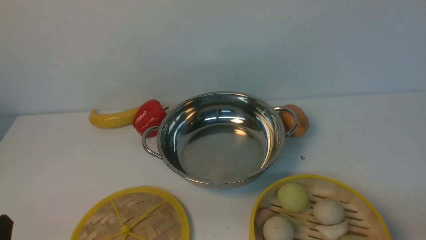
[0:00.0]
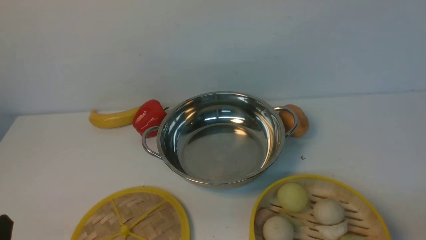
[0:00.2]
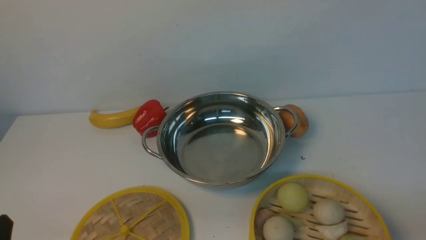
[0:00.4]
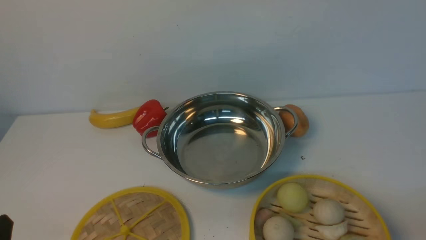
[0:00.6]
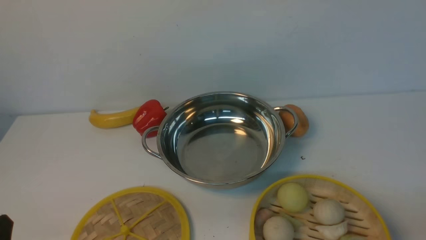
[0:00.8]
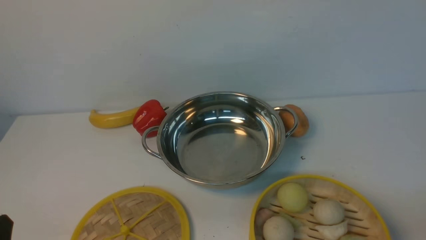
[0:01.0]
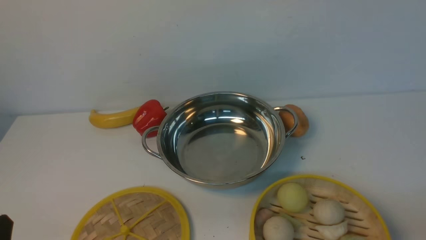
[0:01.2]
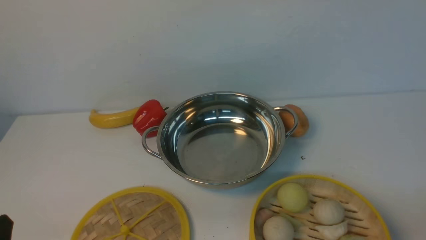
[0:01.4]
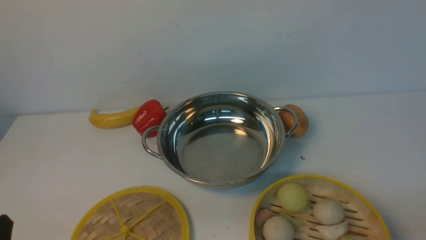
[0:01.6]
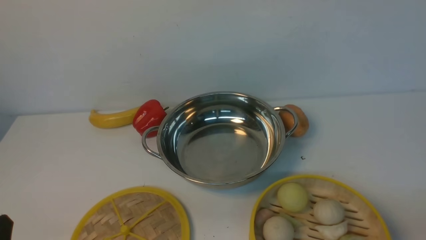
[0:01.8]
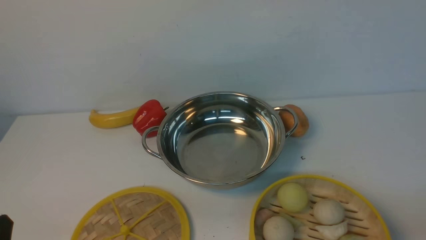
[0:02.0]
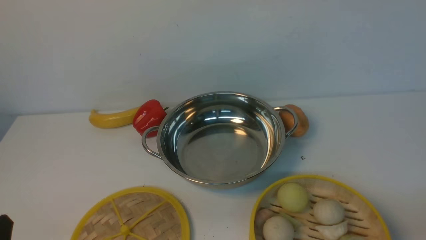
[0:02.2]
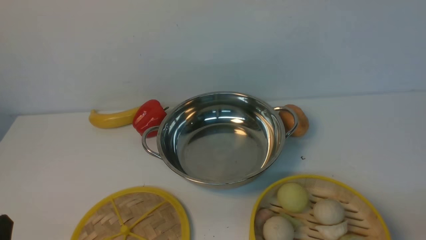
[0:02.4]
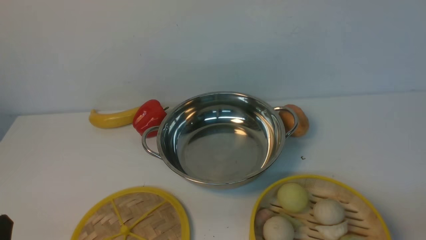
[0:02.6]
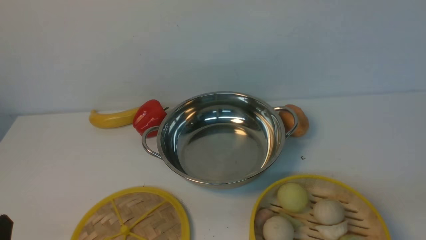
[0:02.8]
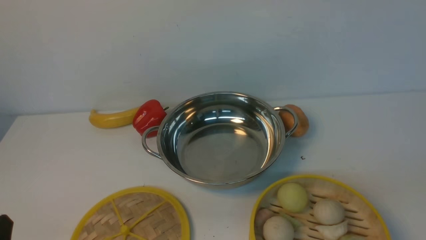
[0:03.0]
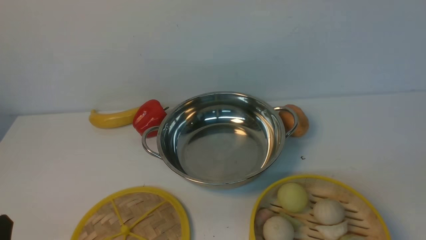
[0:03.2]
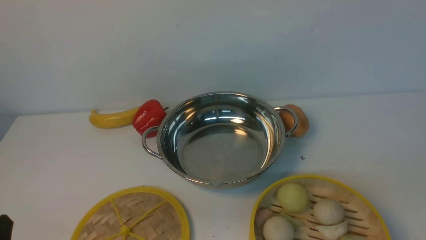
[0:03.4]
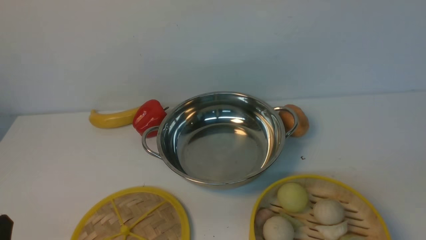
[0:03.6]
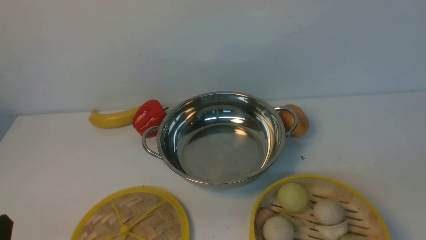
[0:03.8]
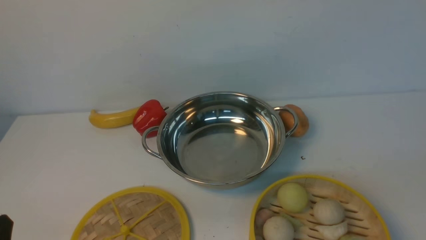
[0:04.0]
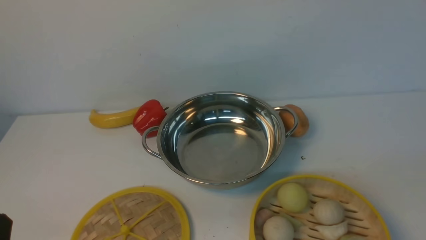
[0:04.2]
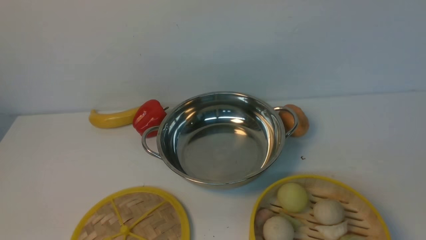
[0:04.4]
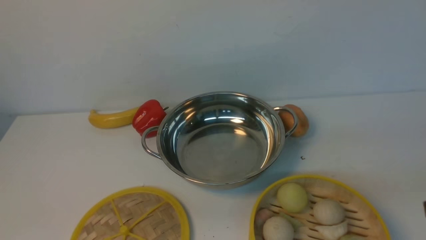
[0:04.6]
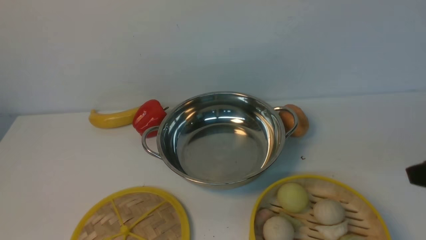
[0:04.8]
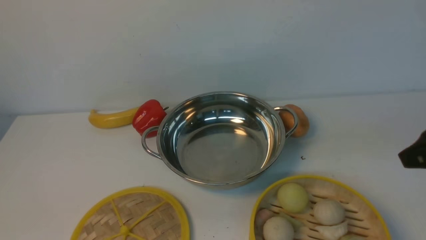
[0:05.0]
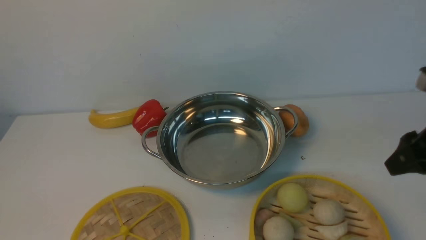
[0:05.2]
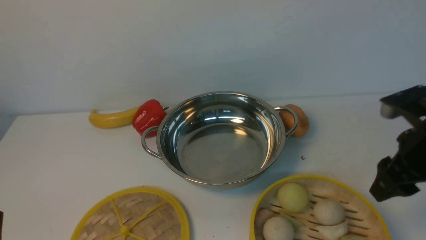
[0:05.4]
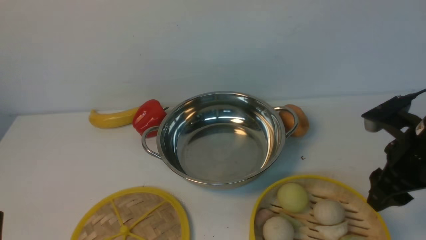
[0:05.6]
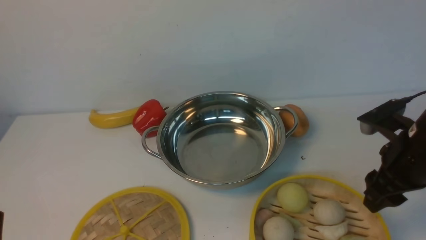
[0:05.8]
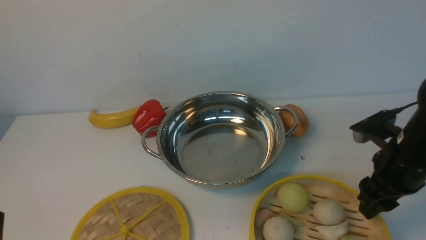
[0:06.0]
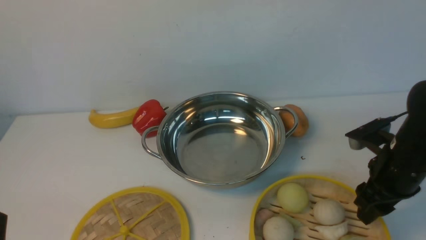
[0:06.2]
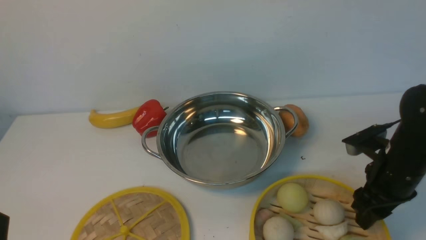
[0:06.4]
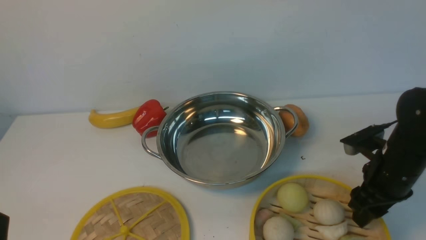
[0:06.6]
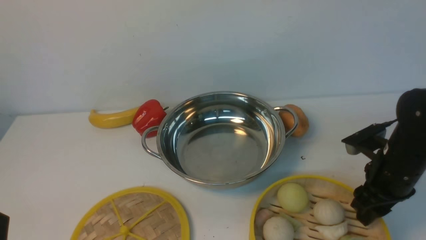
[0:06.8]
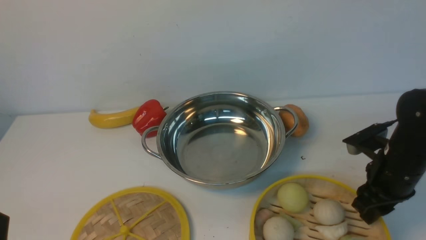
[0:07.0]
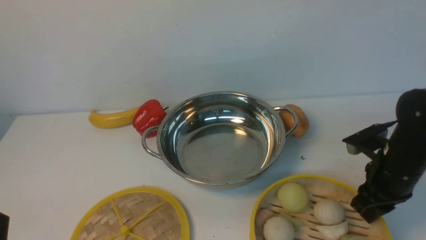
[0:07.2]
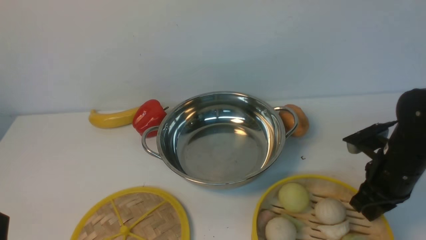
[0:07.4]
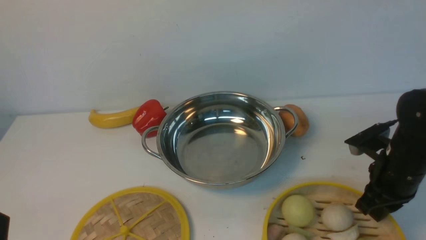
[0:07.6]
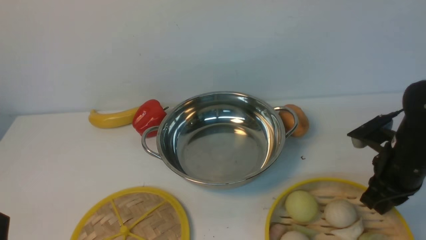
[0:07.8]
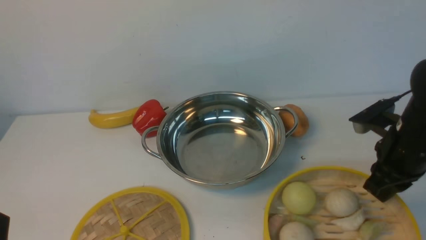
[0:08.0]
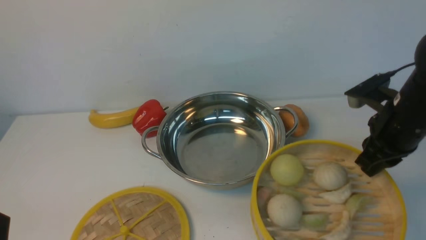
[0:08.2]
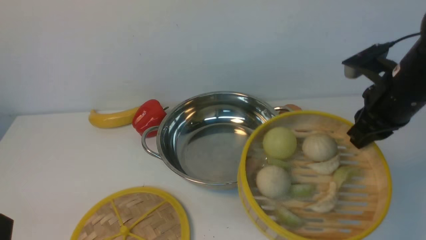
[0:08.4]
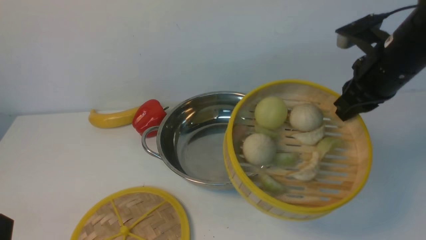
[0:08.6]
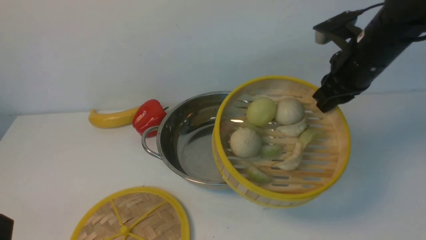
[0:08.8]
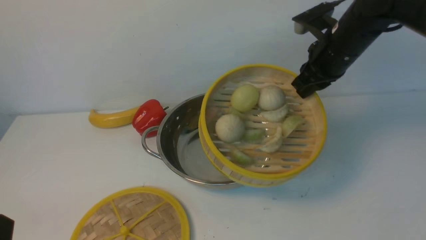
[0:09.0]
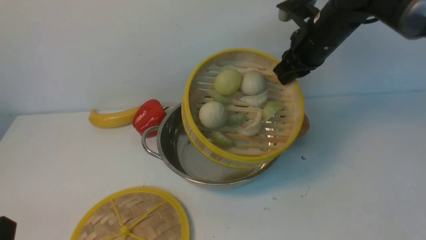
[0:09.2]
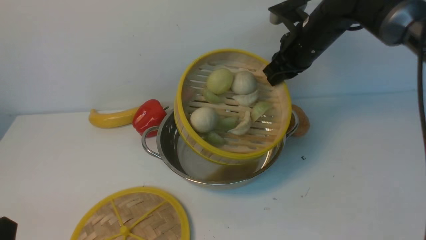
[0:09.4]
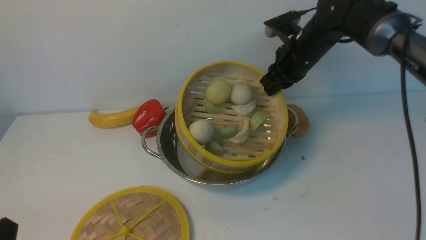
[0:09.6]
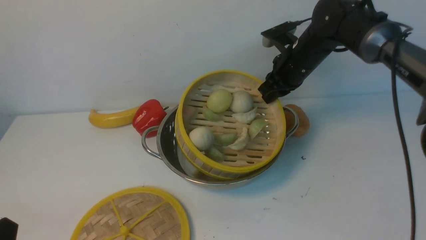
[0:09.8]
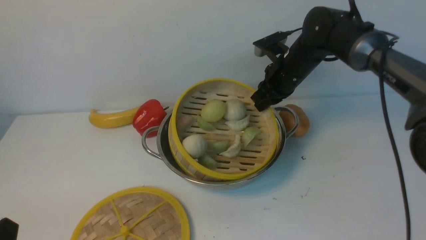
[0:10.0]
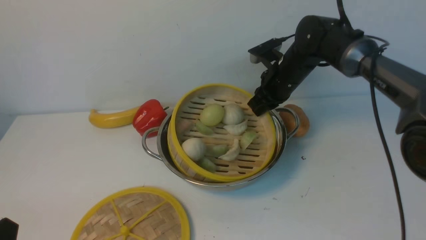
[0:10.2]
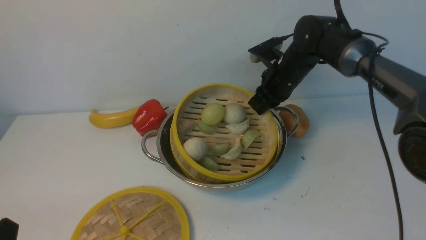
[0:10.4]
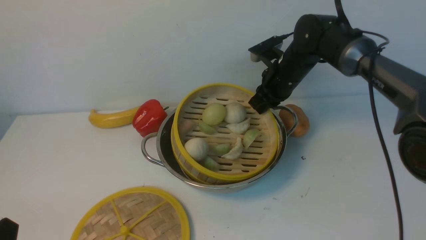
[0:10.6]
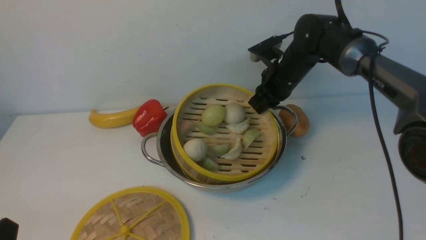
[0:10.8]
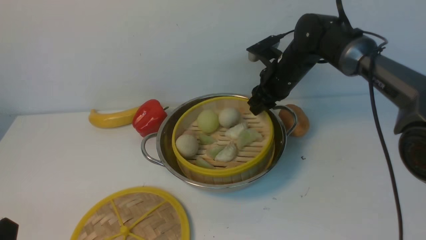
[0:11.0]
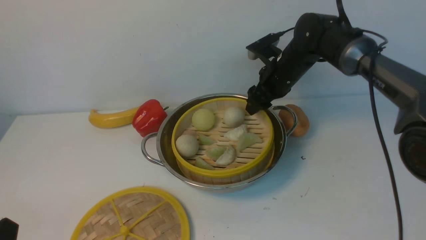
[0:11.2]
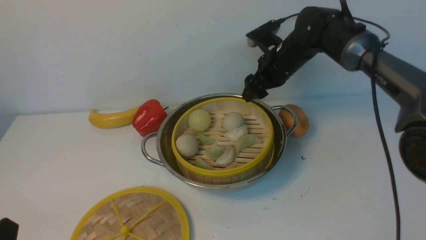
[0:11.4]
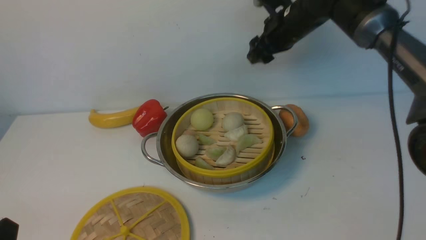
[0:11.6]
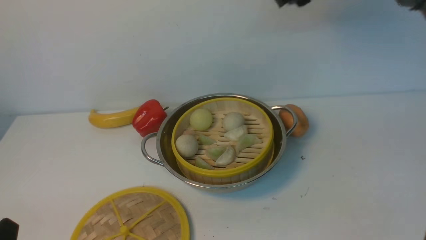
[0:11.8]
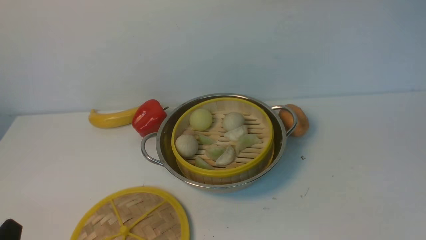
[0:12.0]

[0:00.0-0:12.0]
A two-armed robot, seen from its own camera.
Task of the whole recording: place the steamer in the pot on the white table, and put the lid on the steamer.
Step, 0:00.0 to 0:08.2: use the right arm to lift the steamer closest to it.
Step, 0:08.4 to 0:11.6: use the right arm to put the steamer into the iron steamer pot in the middle.
0:00.0 to 0:01.6: Both grippers stay put.
0:04.4 to 0:06.0: The right gripper goes roughly 25 cm forward and downward, and opens its fingers.
0:06.0 to 0:07.6: The right gripper closes its fingers.
0:07.6 to 0:09.0: The right gripper is displaced forward, upward and to the left by approximately 20 cm.
0:09.0 to 0:10.4: The right gripper moves downward, forward and to the left, approximately 15 cm.
0:10.4 to 0:12.0: The right gripper moves upward, some 30 cm, and opens, then closes once more.

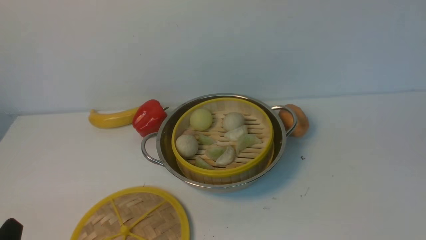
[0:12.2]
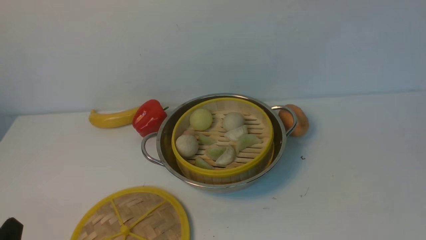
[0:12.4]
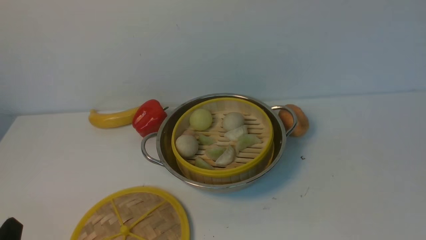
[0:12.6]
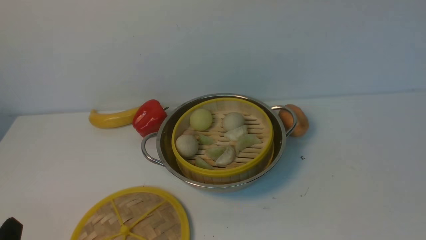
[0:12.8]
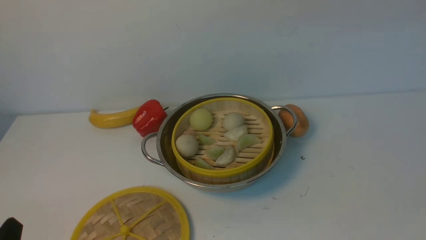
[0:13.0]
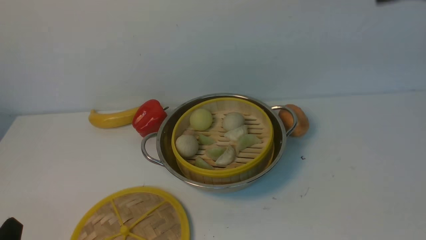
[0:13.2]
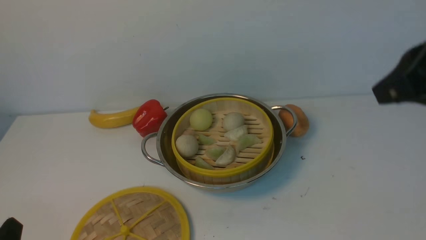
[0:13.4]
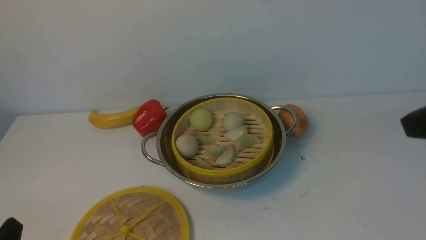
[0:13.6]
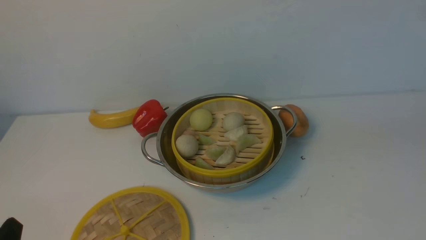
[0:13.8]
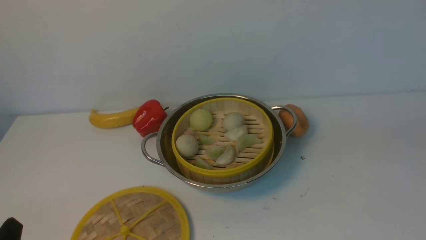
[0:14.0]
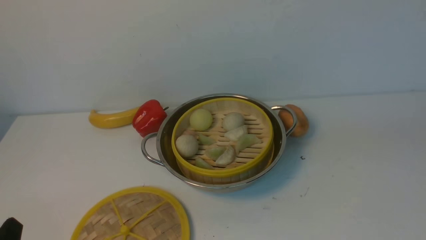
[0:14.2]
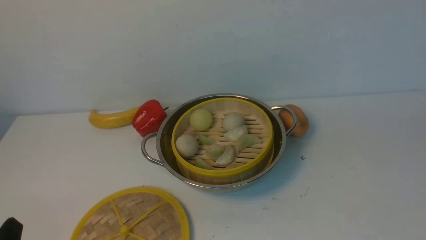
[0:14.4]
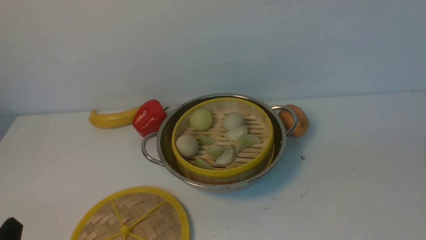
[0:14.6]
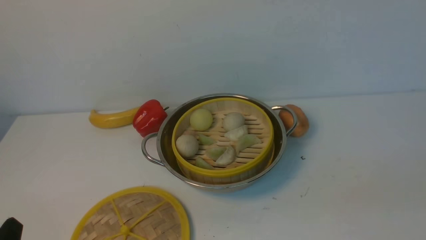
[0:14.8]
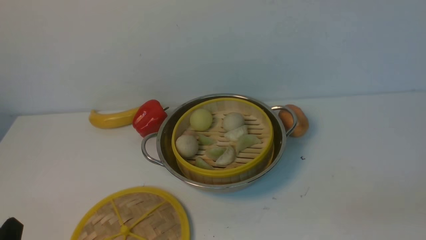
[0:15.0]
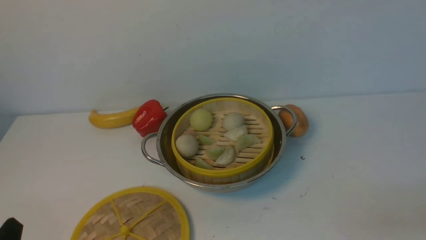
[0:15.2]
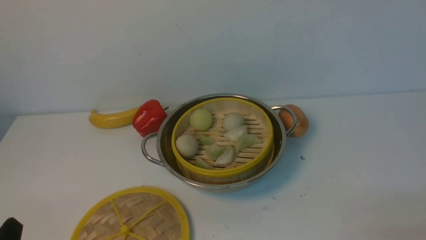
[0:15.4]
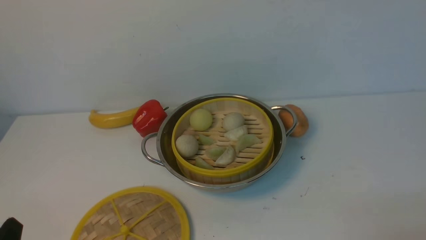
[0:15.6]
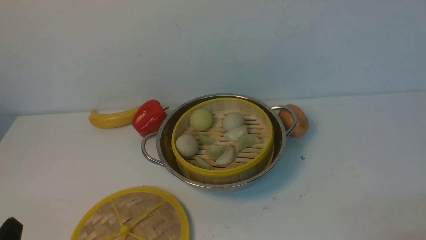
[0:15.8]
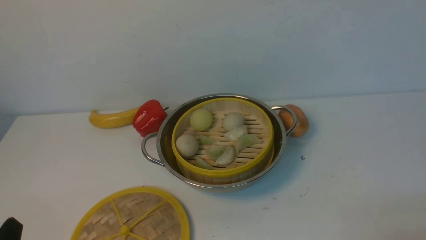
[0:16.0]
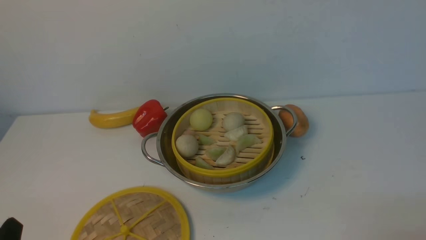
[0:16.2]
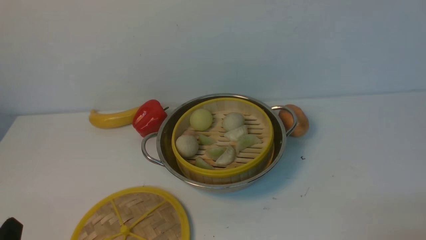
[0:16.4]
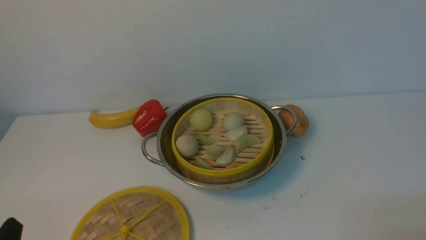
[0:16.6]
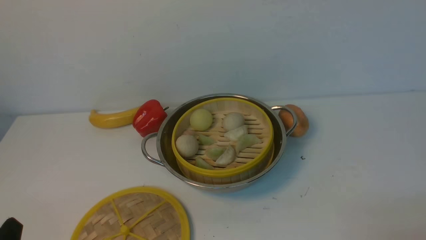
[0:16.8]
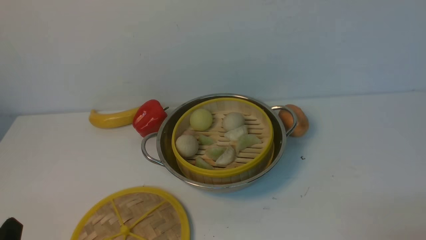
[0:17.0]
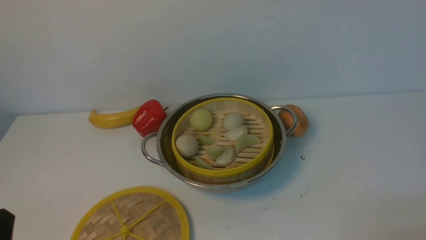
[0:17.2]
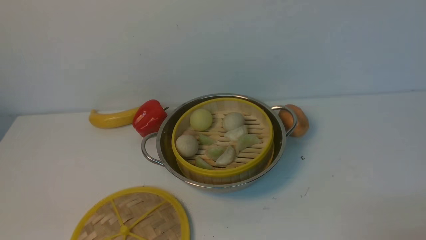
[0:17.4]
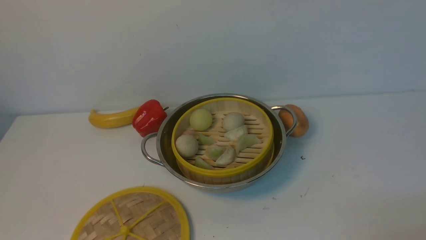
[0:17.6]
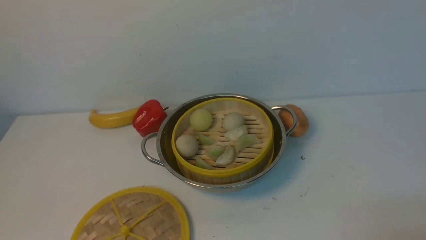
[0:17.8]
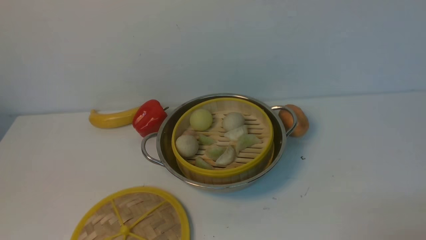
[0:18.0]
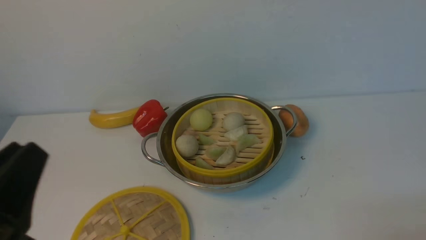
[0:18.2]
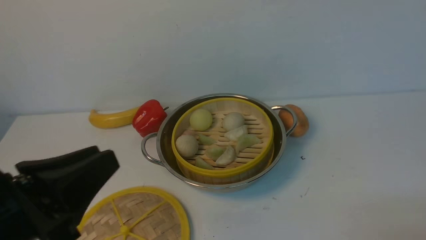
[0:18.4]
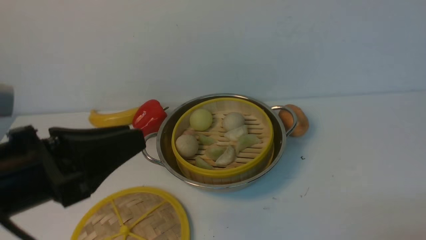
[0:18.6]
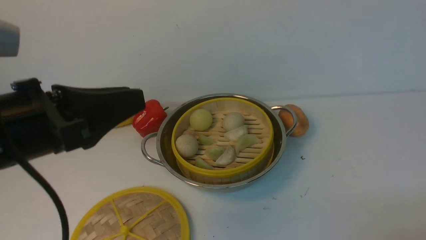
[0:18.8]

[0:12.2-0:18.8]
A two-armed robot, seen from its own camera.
Task of the whole recording: place the steamer in the pot on the white table, and put the lid on the steamer.
0:17.2 to 0:18.8: The left gripper travels upward, forward and to the right by about 20 cm.
